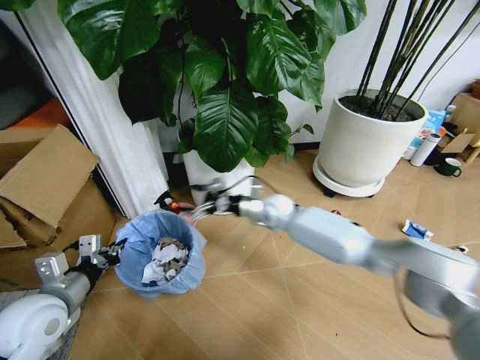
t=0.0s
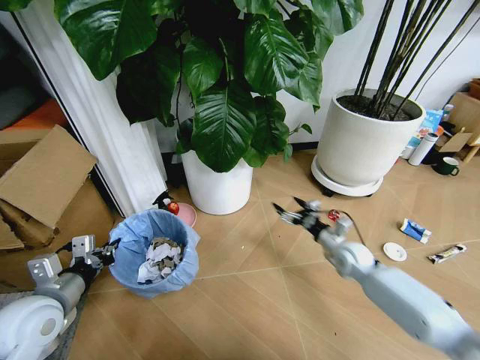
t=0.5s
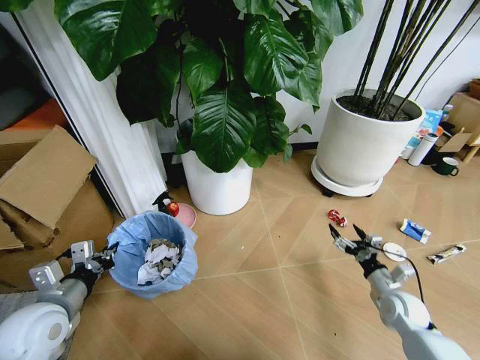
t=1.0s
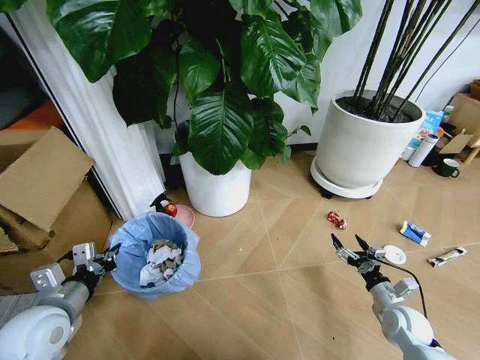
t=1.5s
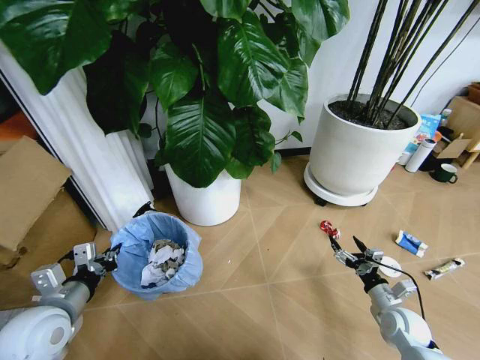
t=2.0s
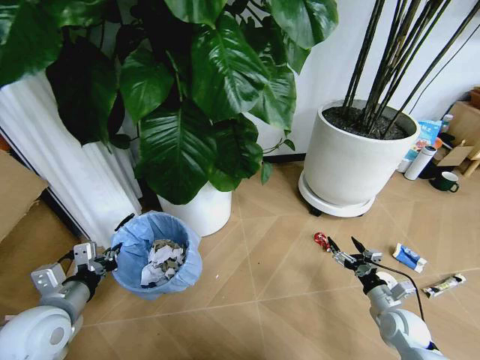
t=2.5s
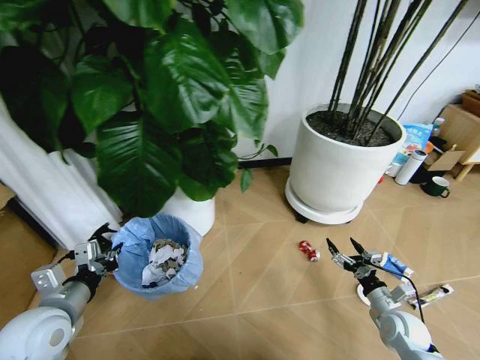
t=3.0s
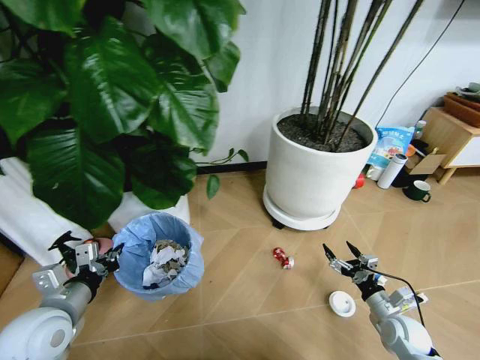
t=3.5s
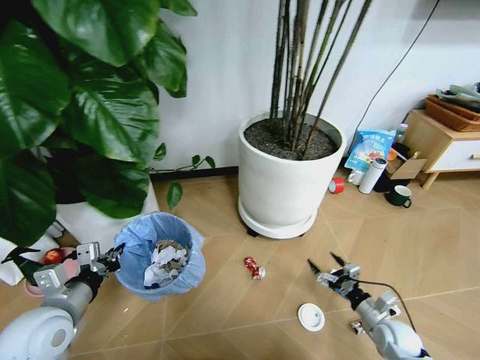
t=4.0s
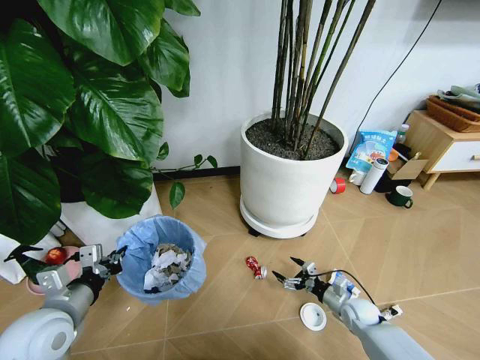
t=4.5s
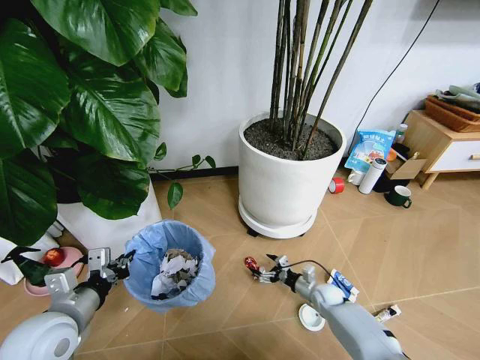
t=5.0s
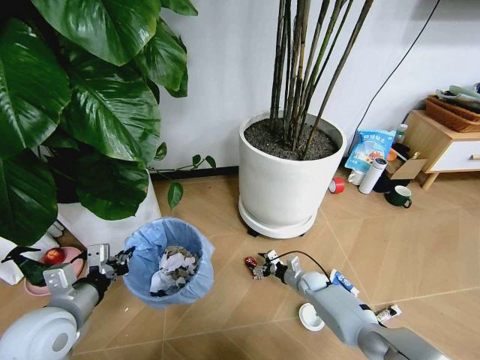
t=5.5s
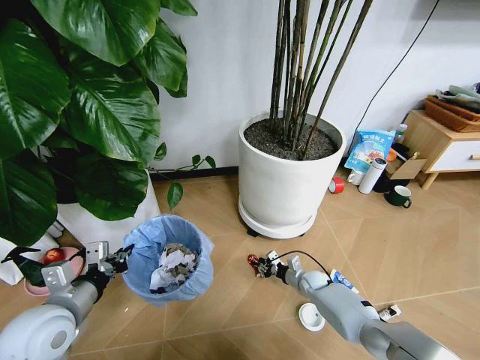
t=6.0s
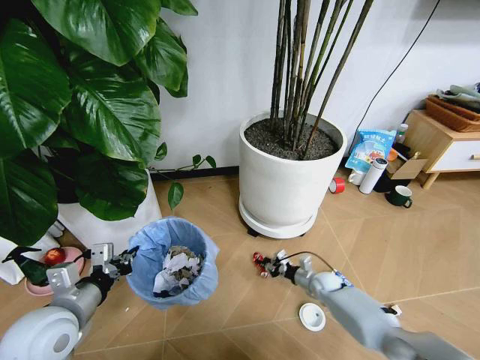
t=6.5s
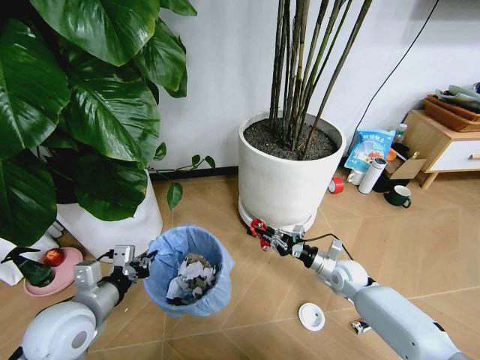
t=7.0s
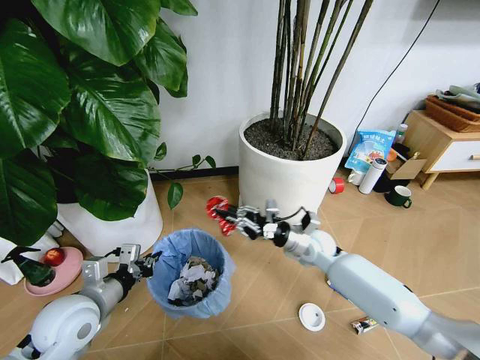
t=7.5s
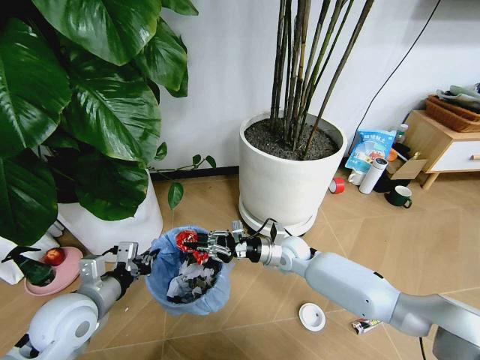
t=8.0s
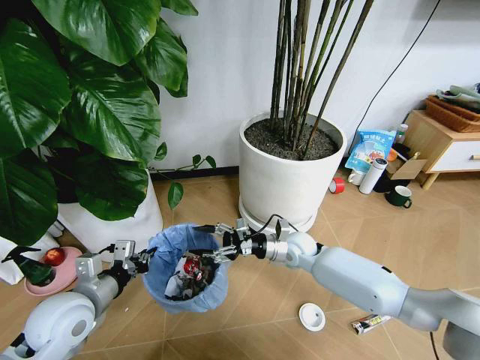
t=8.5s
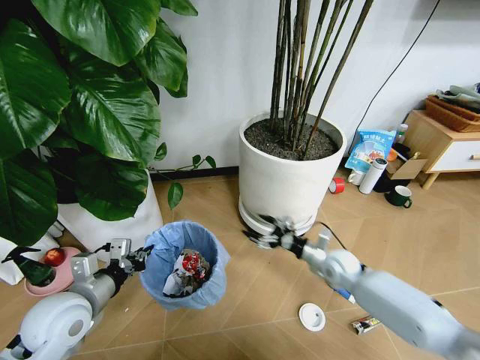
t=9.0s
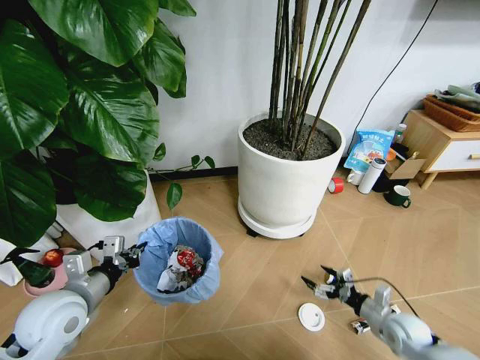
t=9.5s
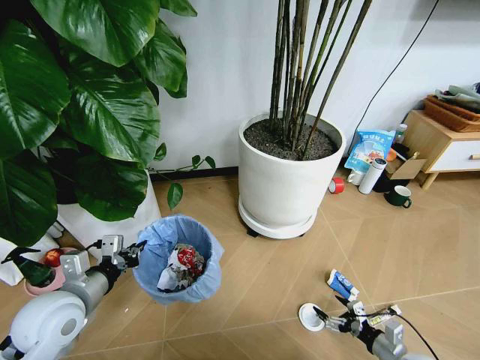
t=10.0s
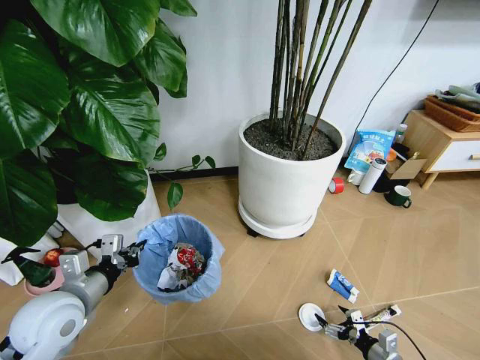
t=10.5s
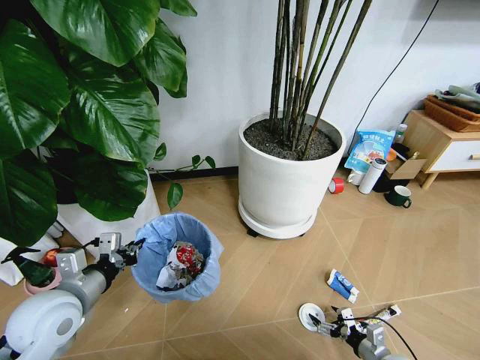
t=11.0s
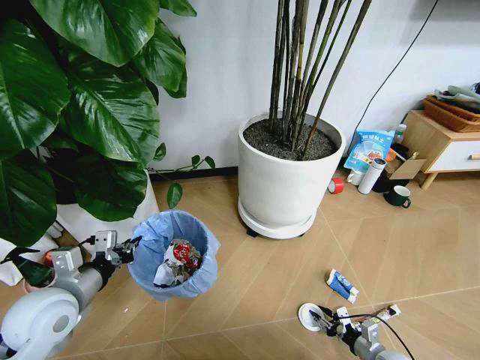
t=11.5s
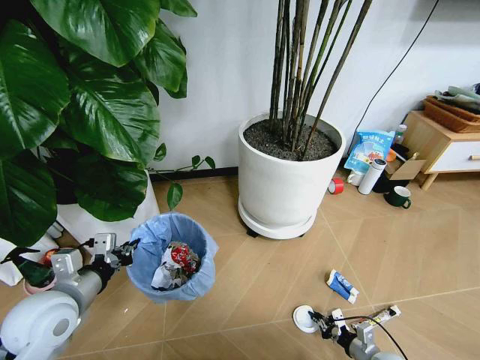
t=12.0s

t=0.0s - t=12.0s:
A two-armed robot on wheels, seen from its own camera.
Task of the whole recording: Pick up the trash bin and place the garbage on the floor into it.
t=0.0s - t=2.0s: The right gripper travels to the right, backward and downward by some 40 cm.
t=4.0s - t=6.0s: The right gripper is displaced forward, to the left and downward by some 25 cm, and closes.
t=6.0s - t=8.0s: The right gripper heads upward and to the left, covering approximately 20 cm.
t=8.0s - t=10.0s: The right gripper goes some 40 cm to the right, backward and downward, and opens its fingers.
t=10.0s - t=12.0s: The right gripper travels downward by some 5 cm, and closes.

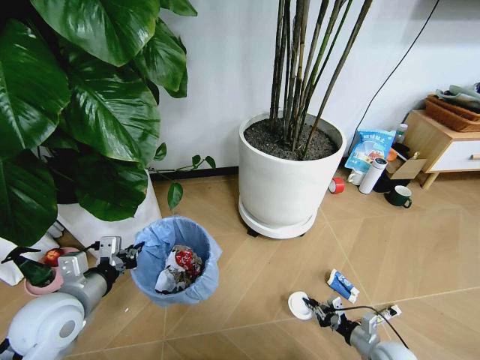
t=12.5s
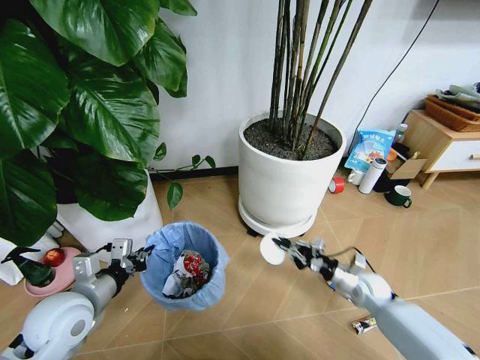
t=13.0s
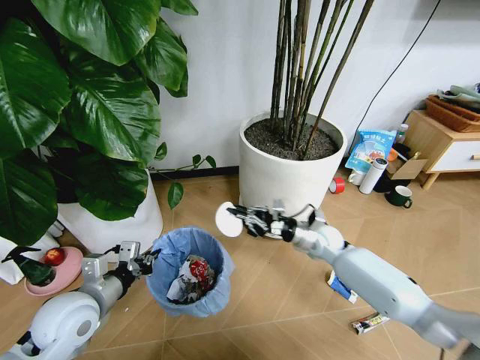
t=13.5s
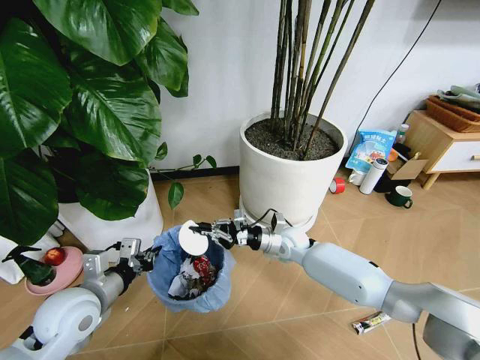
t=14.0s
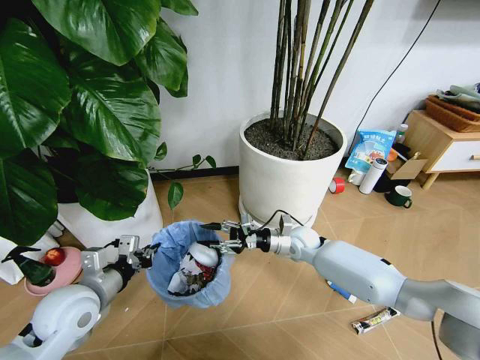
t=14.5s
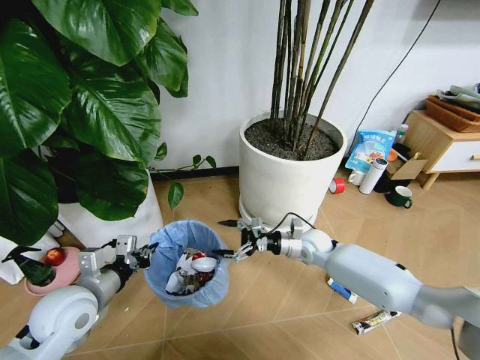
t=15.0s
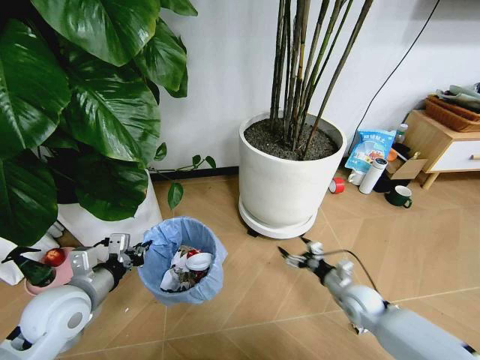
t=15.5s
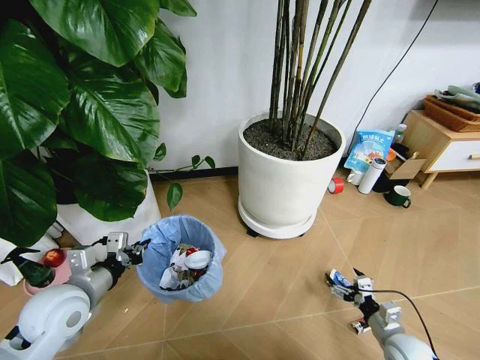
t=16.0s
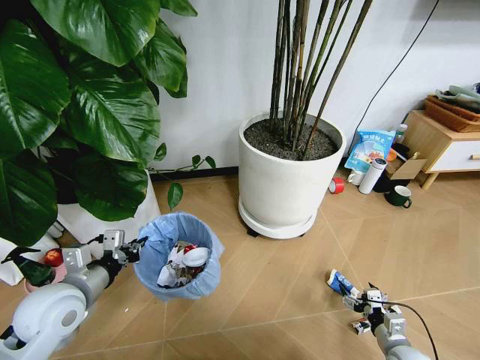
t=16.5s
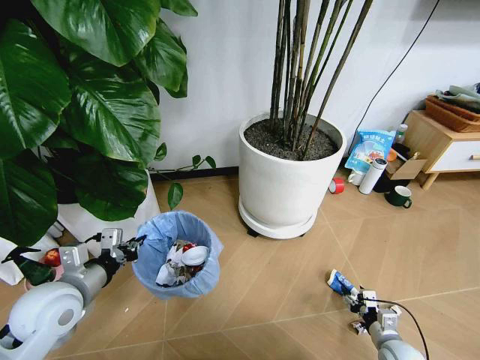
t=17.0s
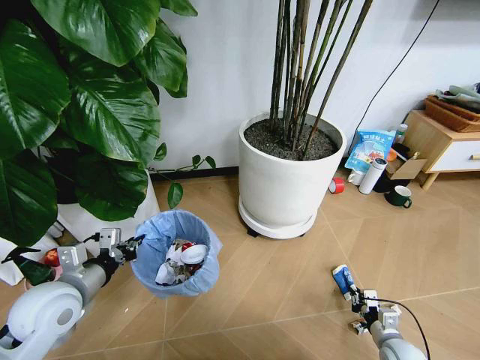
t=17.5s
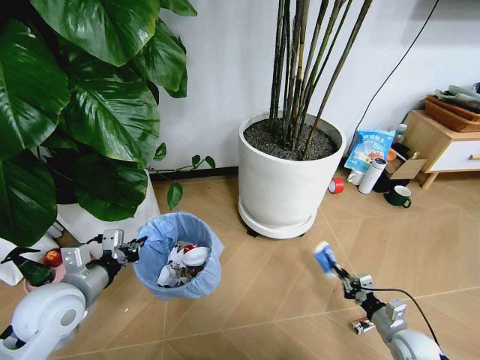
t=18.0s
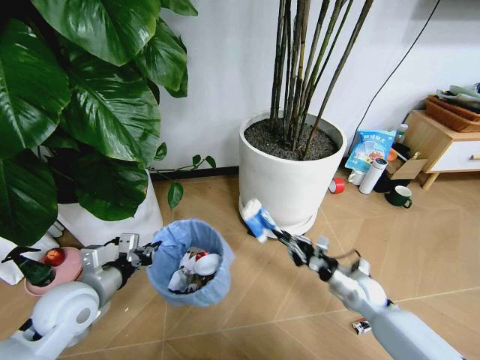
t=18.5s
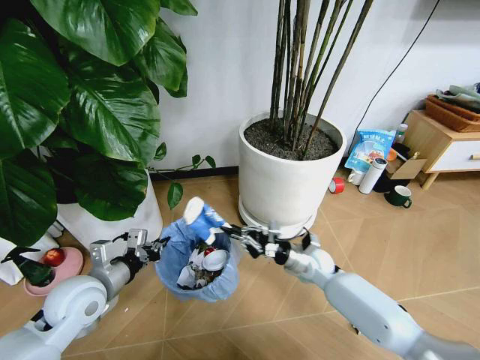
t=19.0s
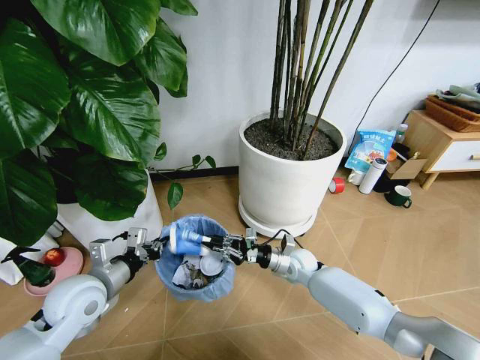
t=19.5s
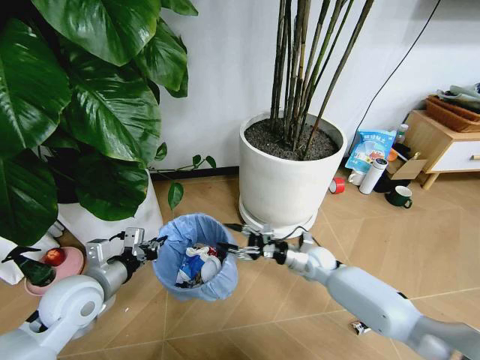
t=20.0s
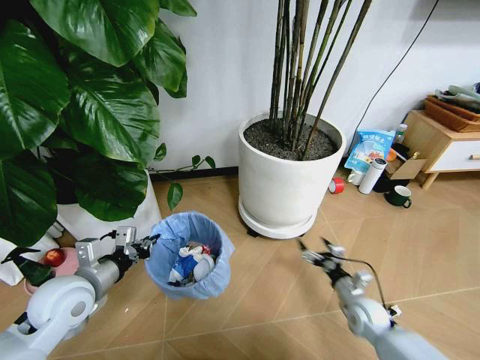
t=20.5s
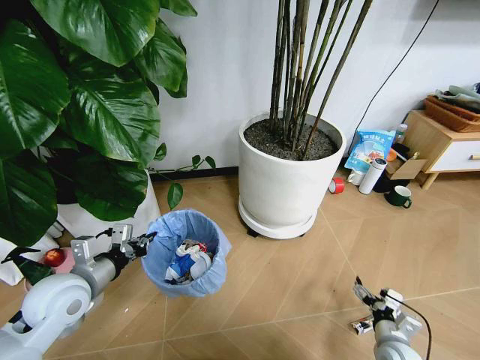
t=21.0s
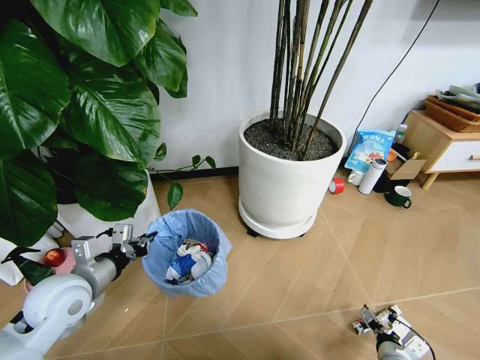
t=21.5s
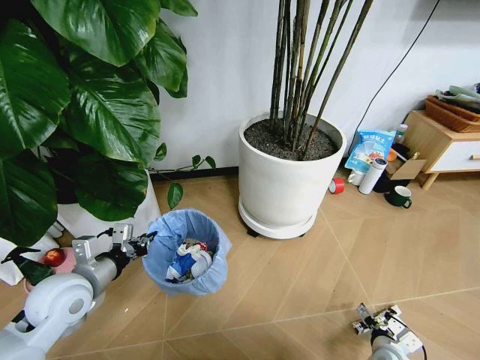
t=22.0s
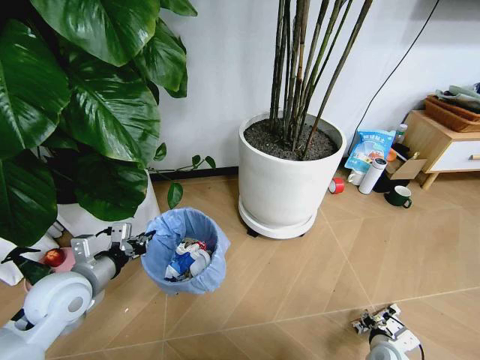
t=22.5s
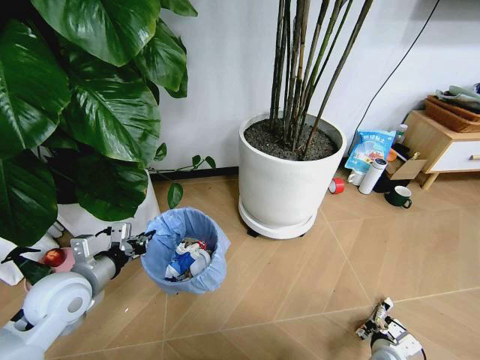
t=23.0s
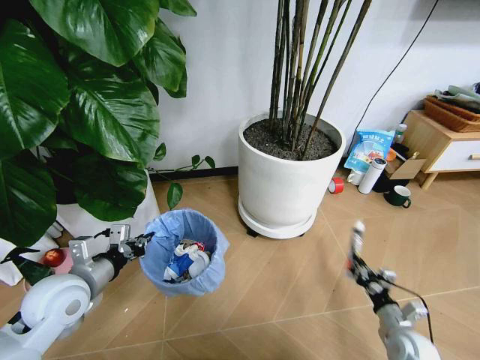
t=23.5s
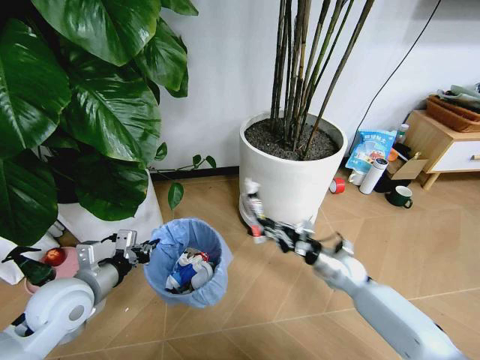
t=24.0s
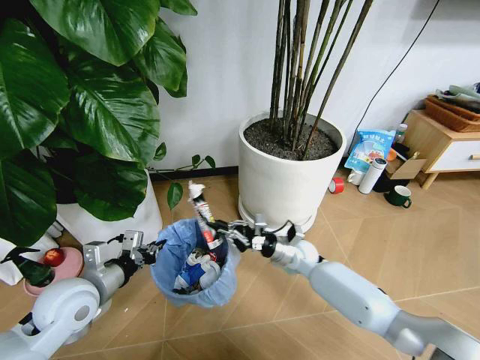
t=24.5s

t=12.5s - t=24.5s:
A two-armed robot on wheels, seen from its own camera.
Task of the whole recording: Pick up the trash bin and place the garbage on the floor into it.
t=12.5s - t=14.5s: The right gripper travels forward, to the left and upward by some 35 cm, and opens up.
t=14.5s - t=16.5s: The right gripper travels backward, to the right and downward by roughly 40 cm, and opens.
t=16.5s - t=18.5s: The right gripper moves forward, upward and to the left, about 20 cm, and closes.
t=18.5s - t=20.5s: The right gripper goes to the left and returns, approximately 15 cm each way, and opens up.
t=20.5s - t=22.5s: The right gripper is displaced backward by some 10 cm, and closes its fingers.
t=22.5s - t=24.5s: The right gripper shifts some 35 cm forward, to the left and upward, and closes up.

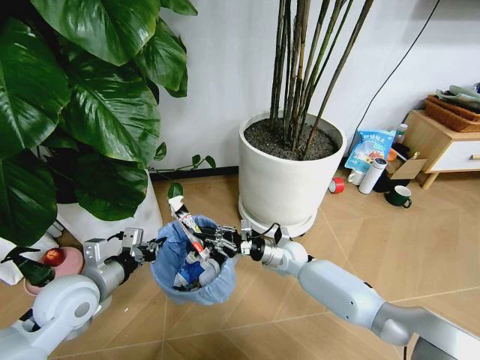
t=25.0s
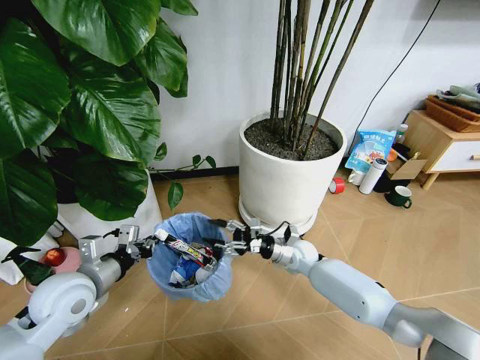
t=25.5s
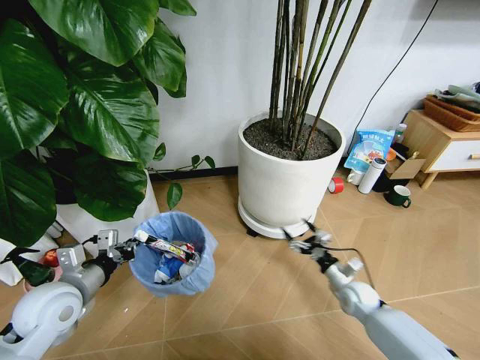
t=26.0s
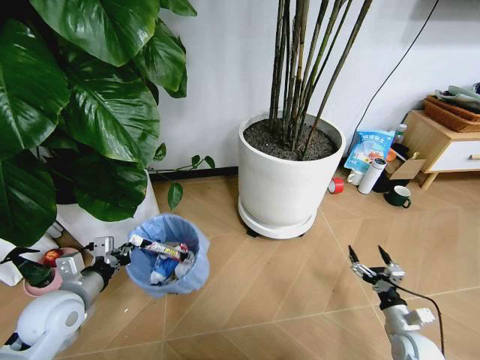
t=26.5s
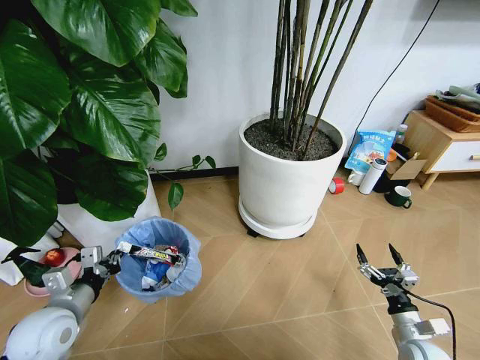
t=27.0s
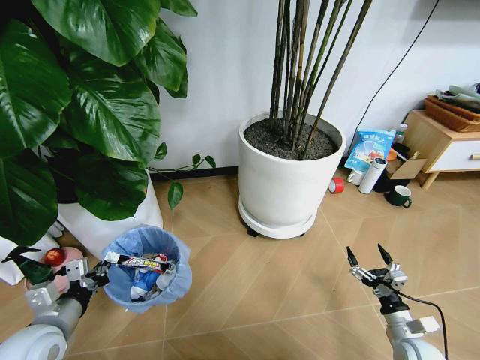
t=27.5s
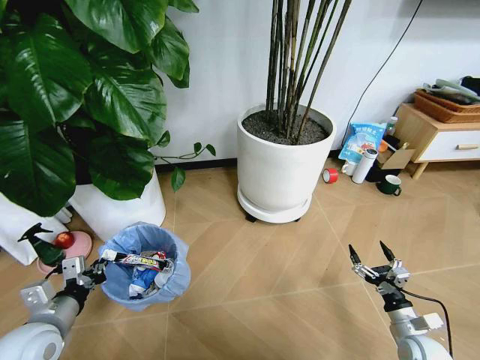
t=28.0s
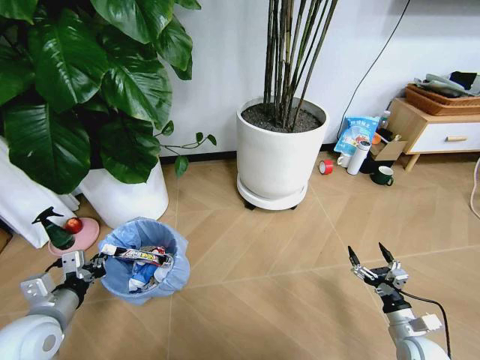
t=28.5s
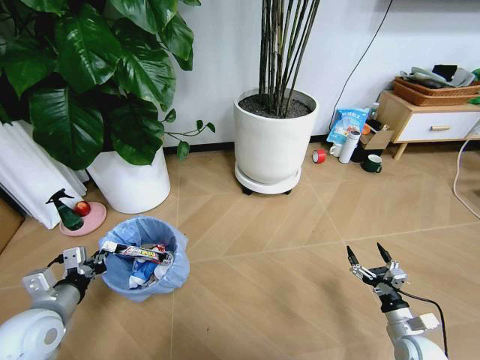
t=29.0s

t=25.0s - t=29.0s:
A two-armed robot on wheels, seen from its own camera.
Task of the whole recording: Pick up the trash bin and place the garbage on the floor into it.
t=25.0s - t=27.0s: The right gripper travels to the right and backward by about 35 cm, and opens its fingers. The left gripper moves roughly 10 cm.
